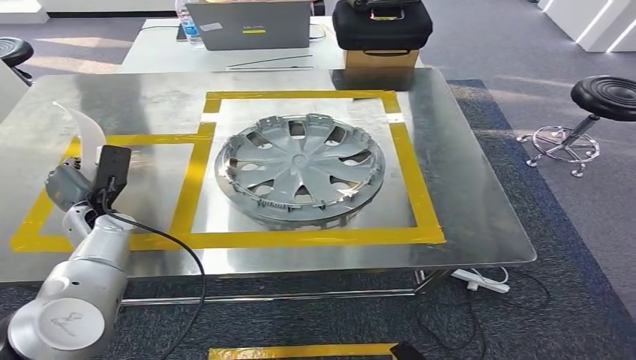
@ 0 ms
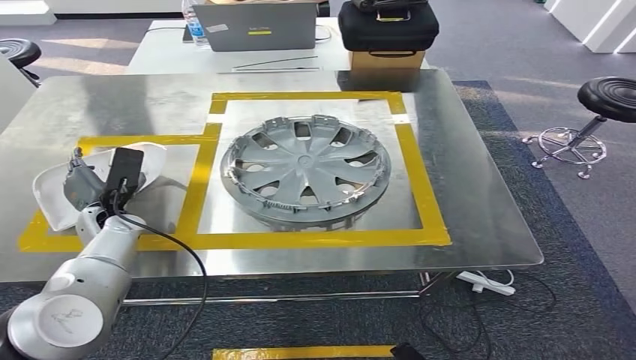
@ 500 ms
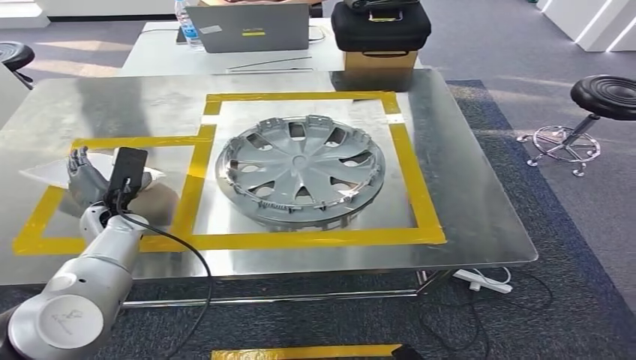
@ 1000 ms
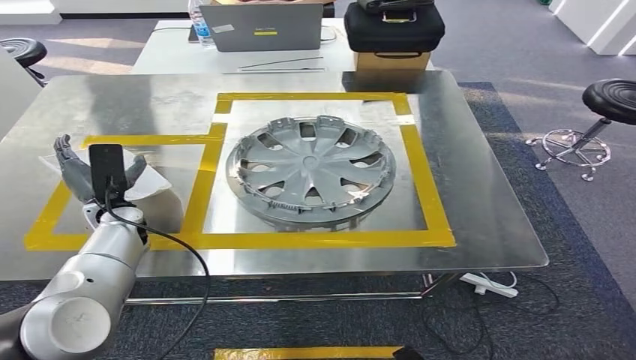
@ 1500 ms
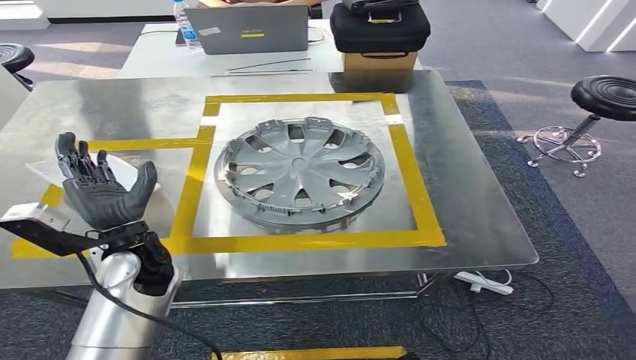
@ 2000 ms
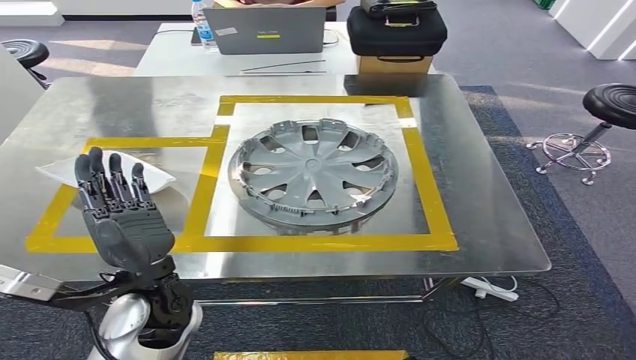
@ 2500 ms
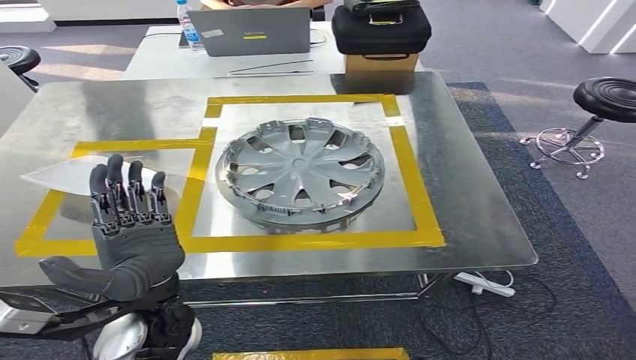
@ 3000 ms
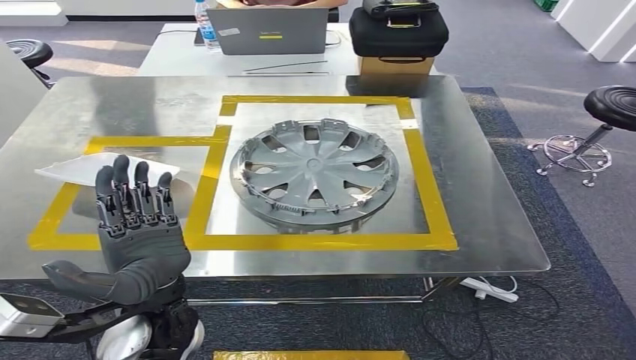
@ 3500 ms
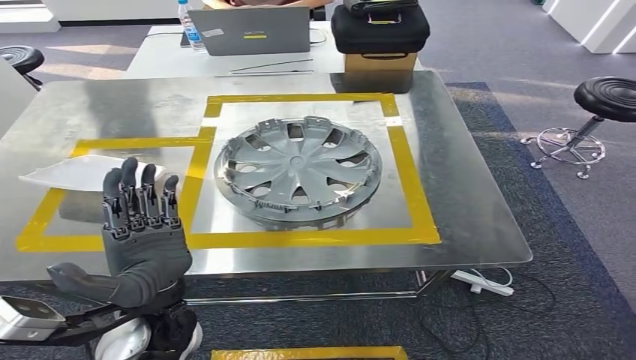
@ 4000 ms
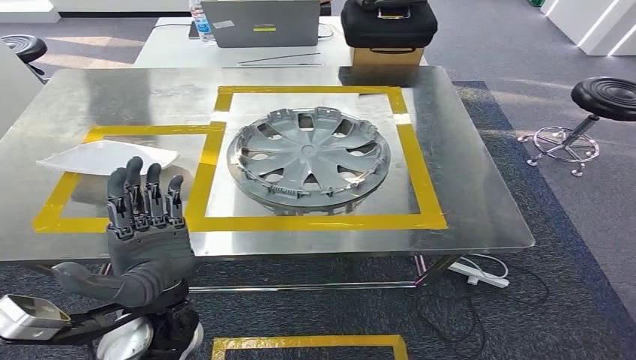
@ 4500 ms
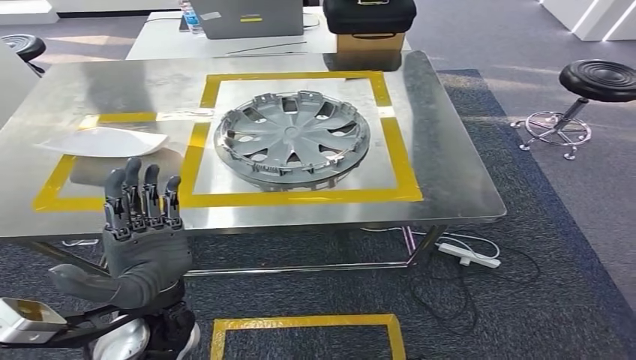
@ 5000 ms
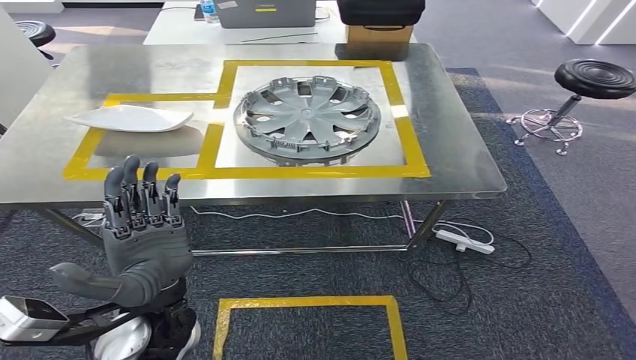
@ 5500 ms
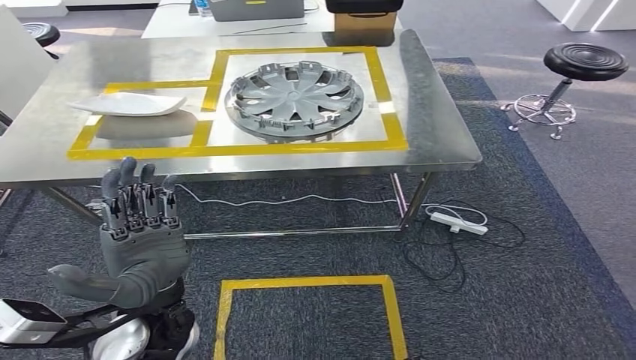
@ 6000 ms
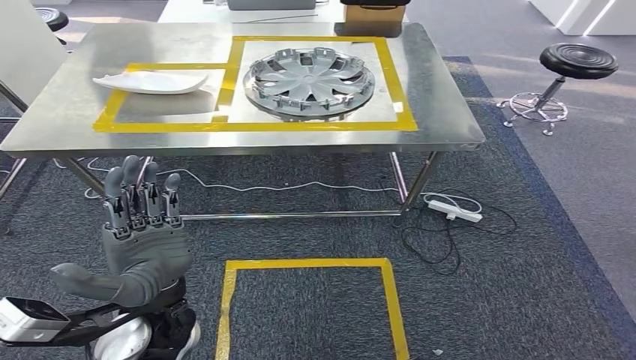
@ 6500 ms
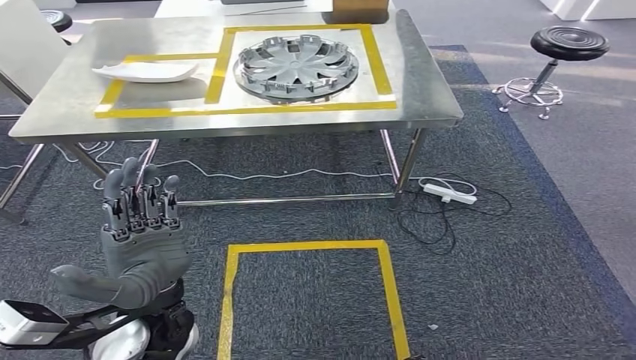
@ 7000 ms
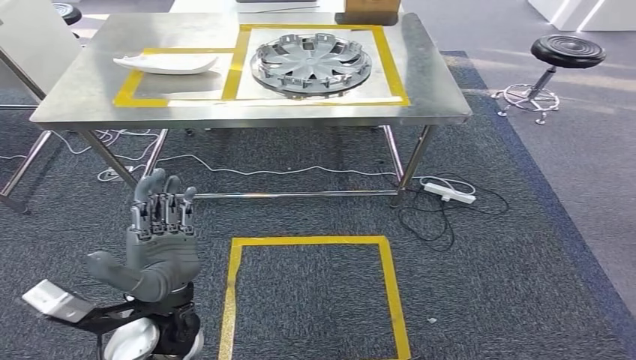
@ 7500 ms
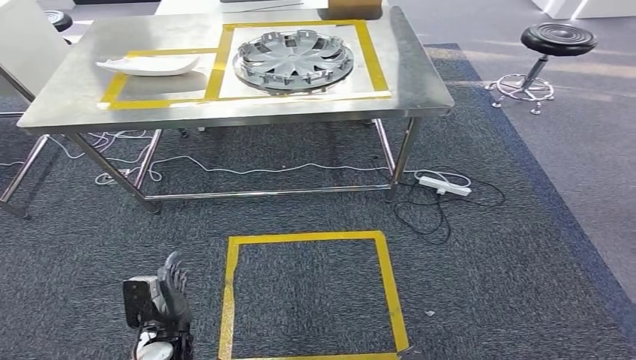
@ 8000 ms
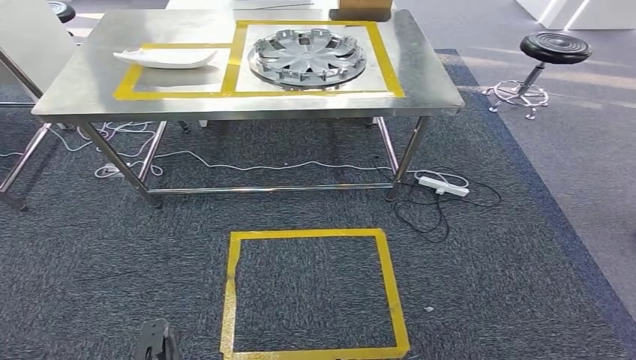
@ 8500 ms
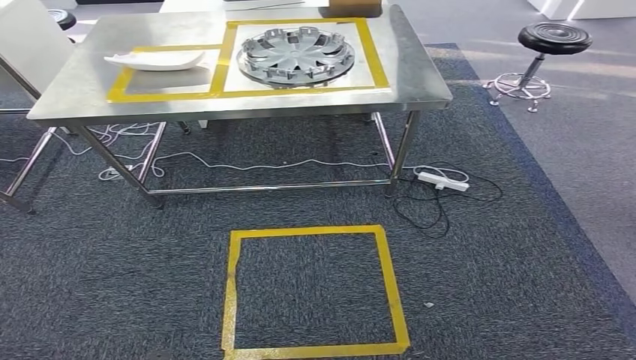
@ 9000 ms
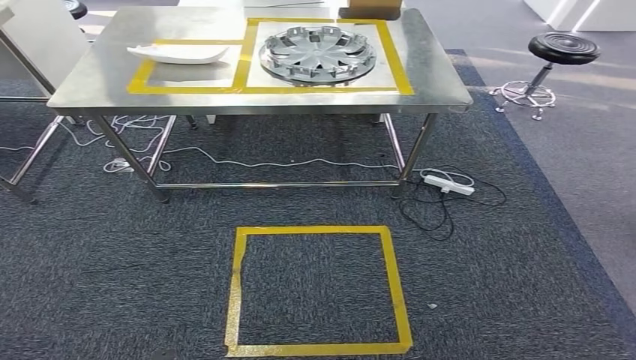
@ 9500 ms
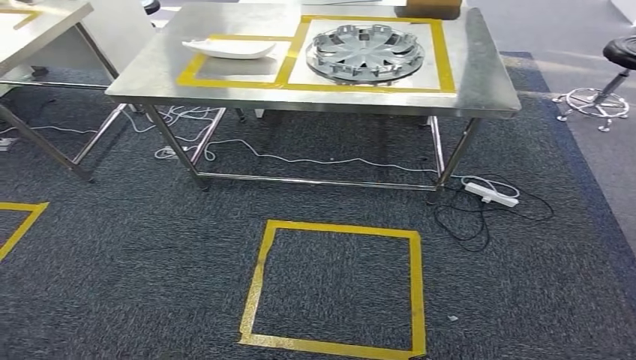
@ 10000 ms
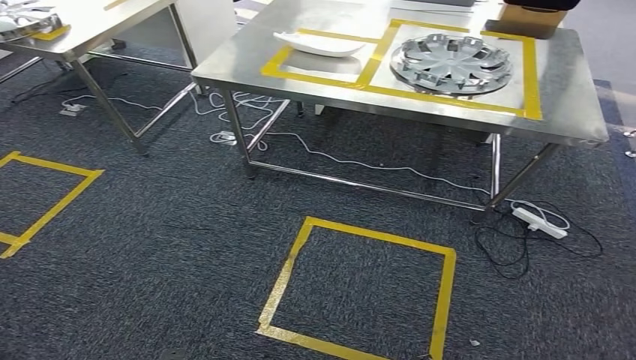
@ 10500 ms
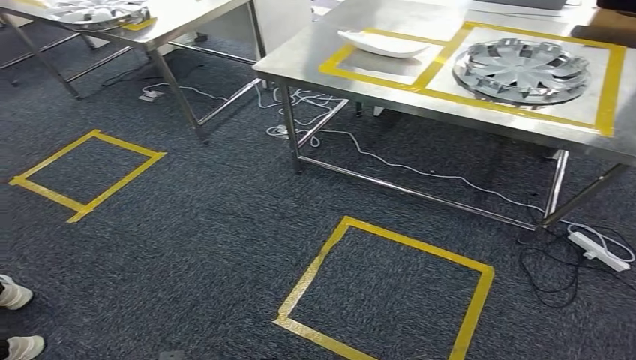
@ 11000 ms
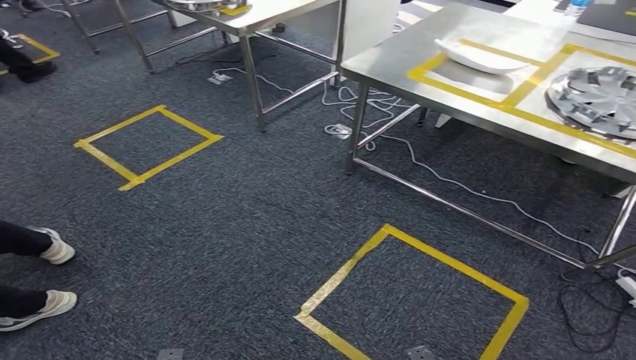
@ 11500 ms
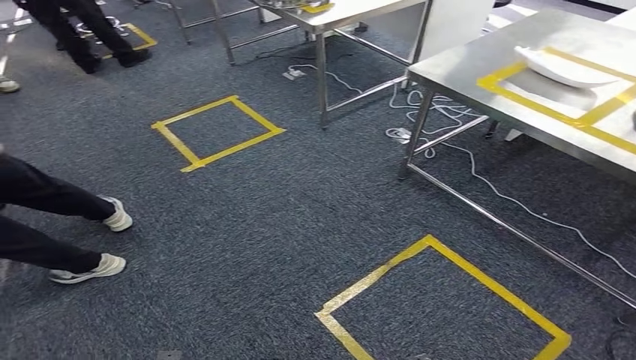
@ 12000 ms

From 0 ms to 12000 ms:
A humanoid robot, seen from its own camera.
Step, from 0 ms to 4500 ms: Insert the small component into the corresponding slot on the workbench.

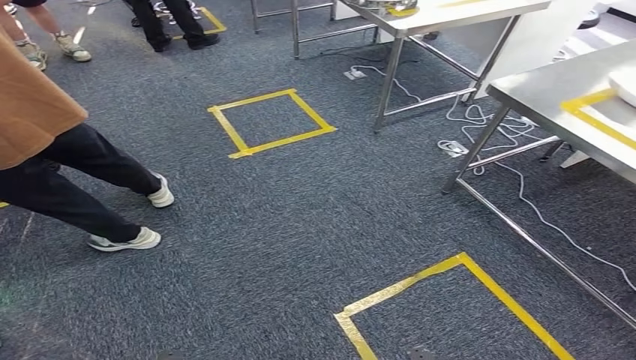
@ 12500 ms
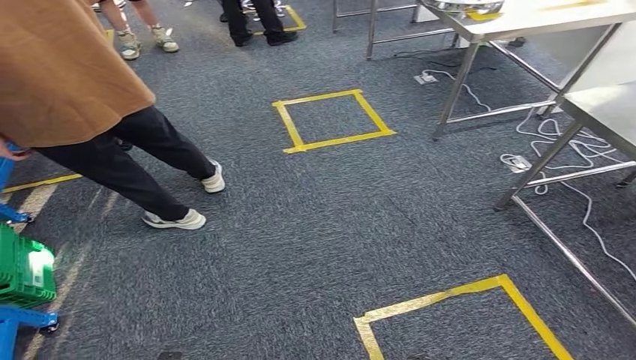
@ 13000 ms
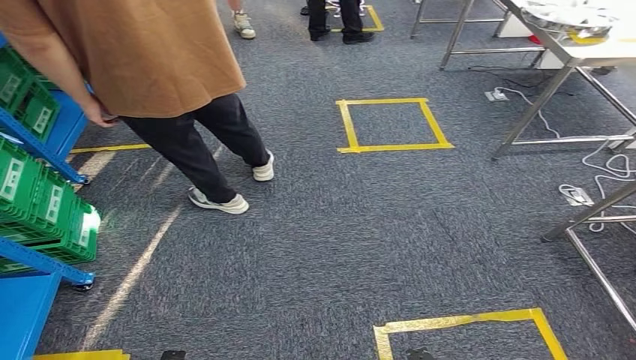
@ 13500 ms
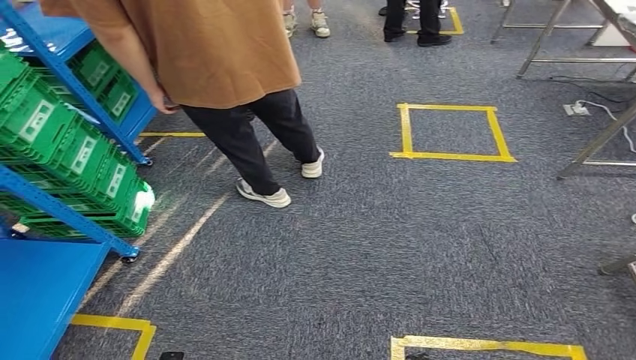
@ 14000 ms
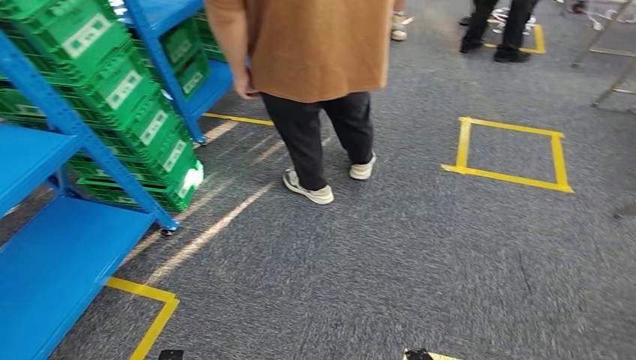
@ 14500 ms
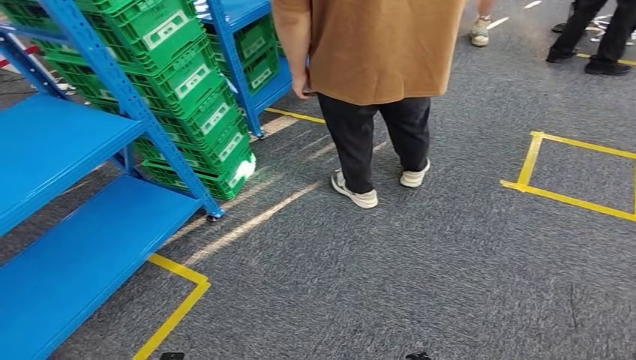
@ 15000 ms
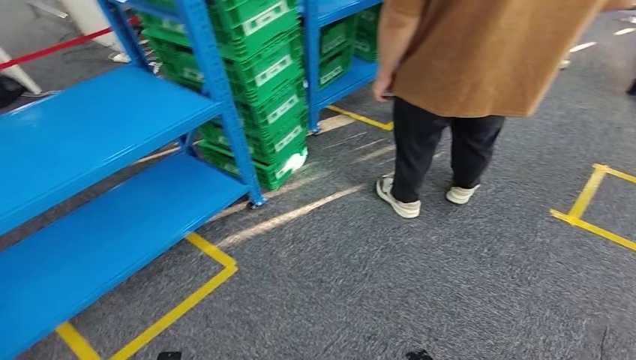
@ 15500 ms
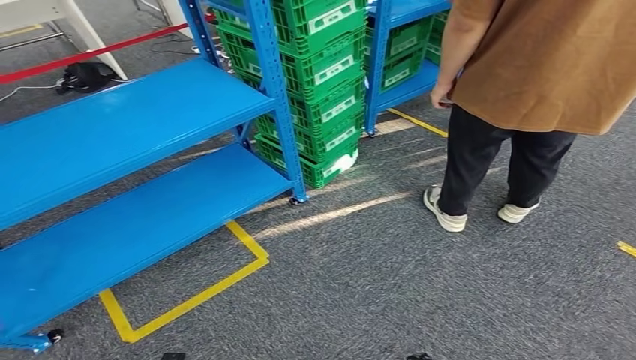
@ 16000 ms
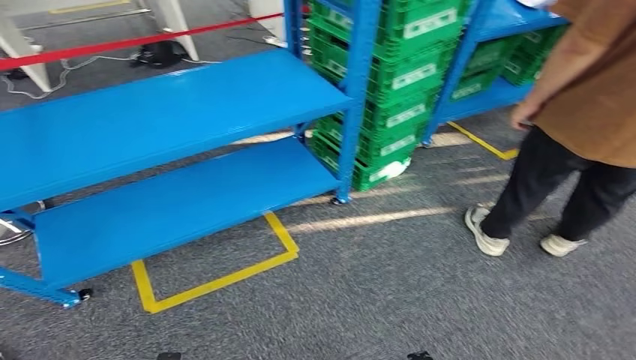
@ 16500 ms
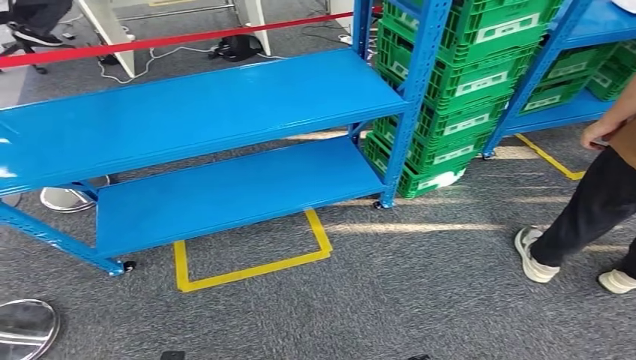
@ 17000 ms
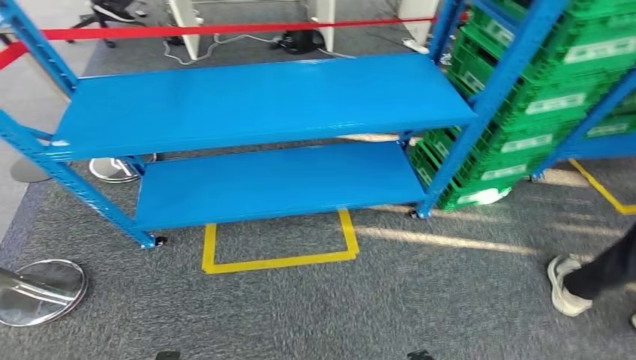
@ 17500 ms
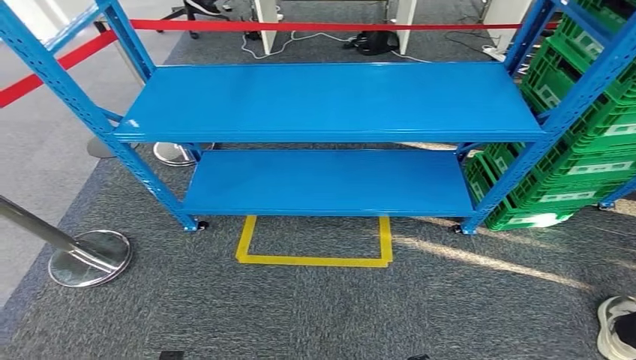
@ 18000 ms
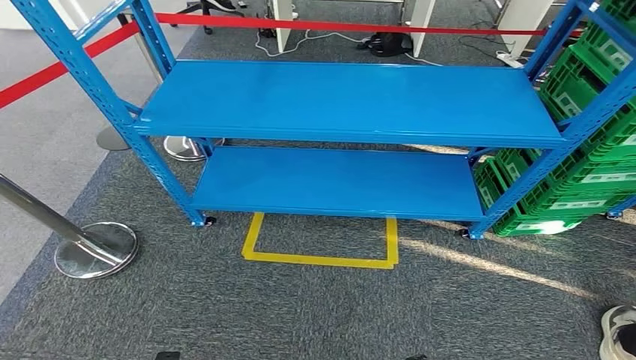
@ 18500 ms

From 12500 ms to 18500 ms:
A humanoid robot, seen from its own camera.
Step, from 12500 ms to 18500 ms: Return to the initial position at the workbench.

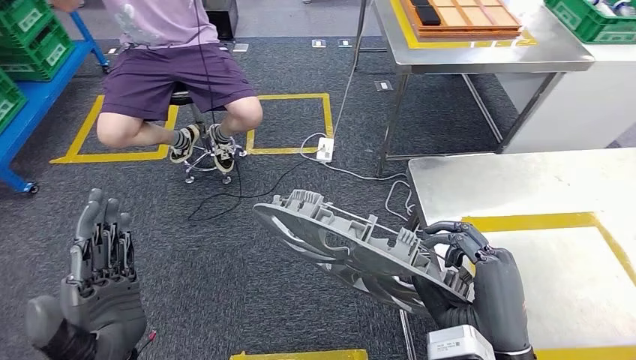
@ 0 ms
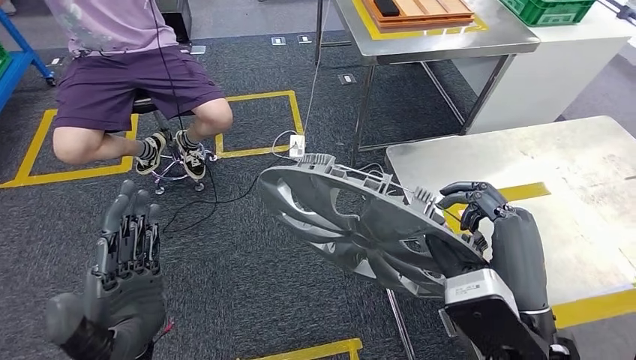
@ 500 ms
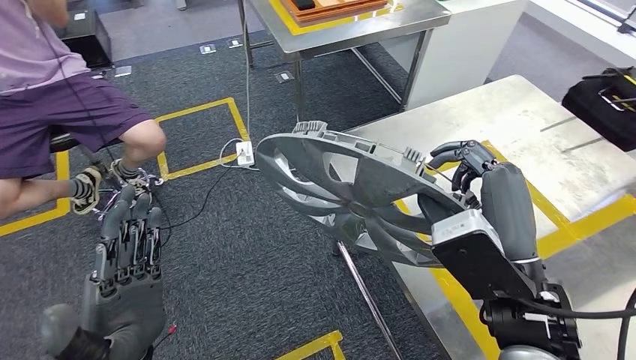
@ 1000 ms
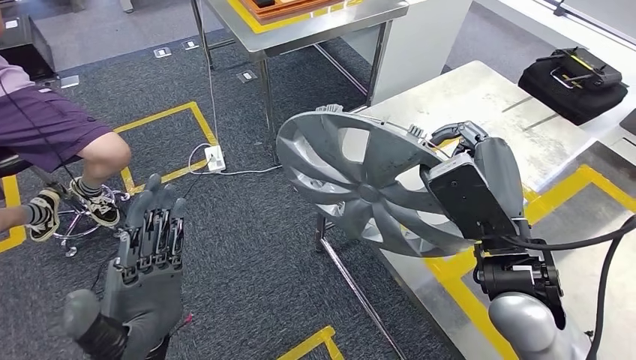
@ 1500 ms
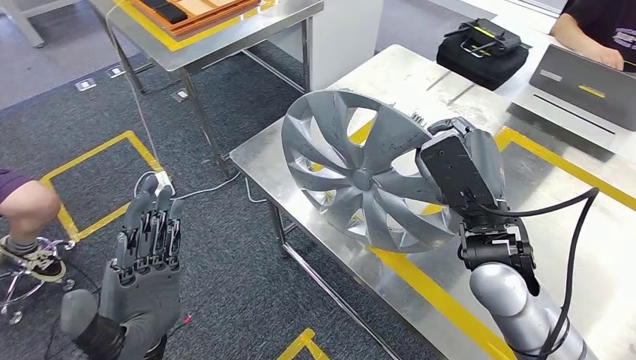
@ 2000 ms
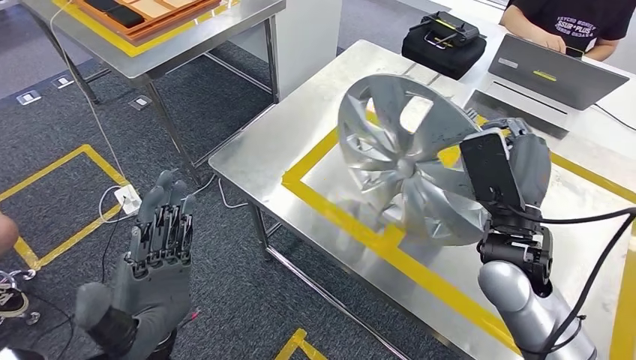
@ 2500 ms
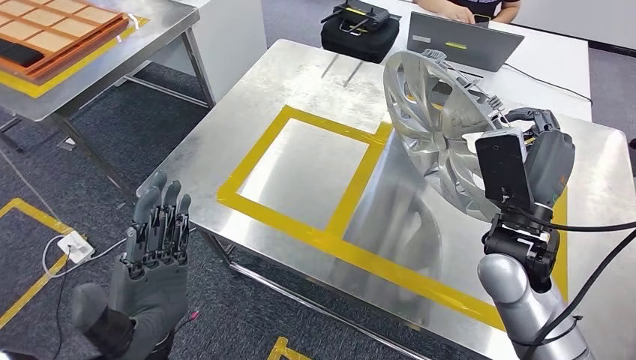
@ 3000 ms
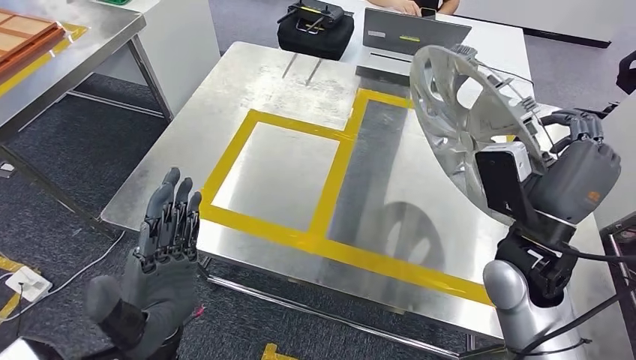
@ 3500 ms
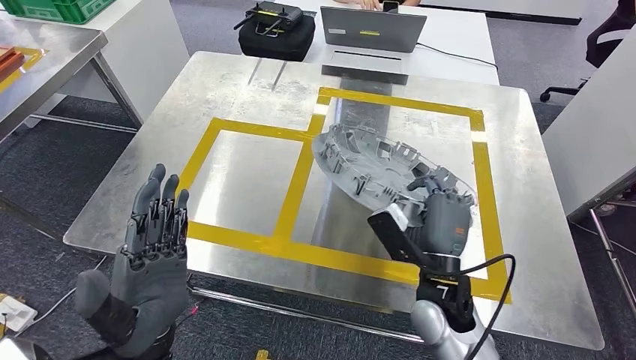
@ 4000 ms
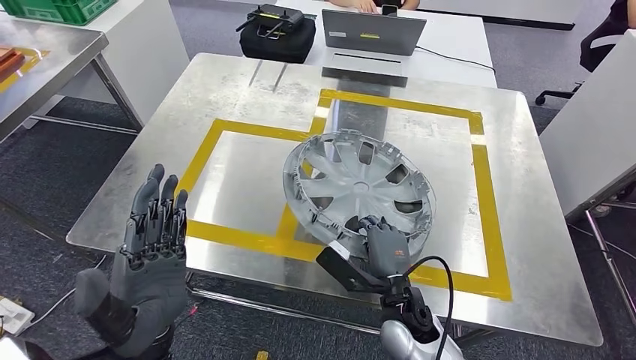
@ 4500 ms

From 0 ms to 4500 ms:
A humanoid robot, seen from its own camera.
Step, from 0 ms to 2000 ms: Move the small component to the workbench.
